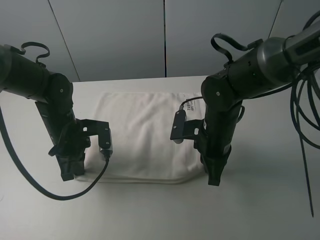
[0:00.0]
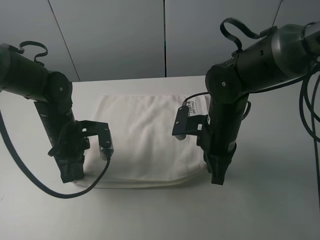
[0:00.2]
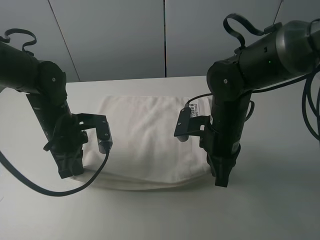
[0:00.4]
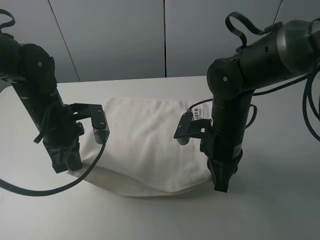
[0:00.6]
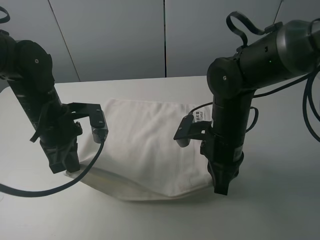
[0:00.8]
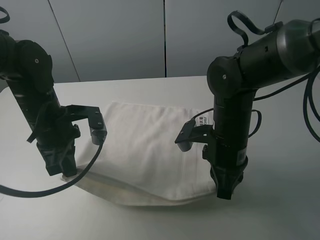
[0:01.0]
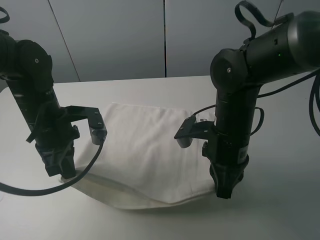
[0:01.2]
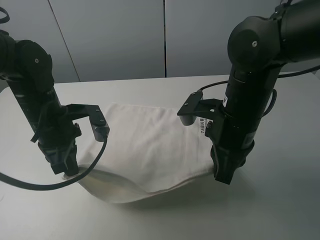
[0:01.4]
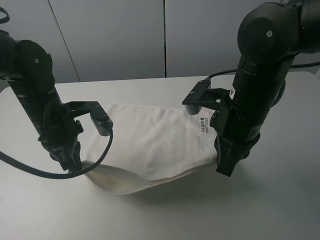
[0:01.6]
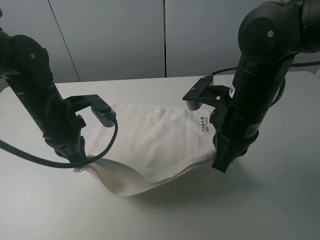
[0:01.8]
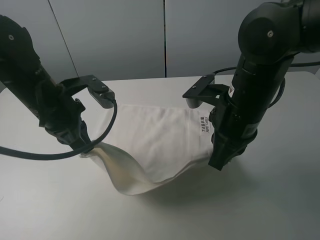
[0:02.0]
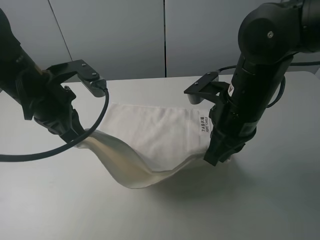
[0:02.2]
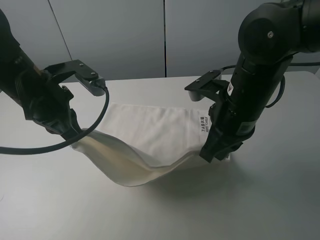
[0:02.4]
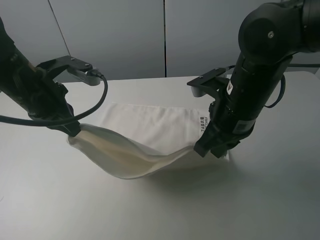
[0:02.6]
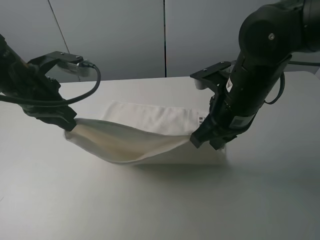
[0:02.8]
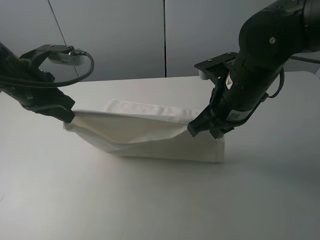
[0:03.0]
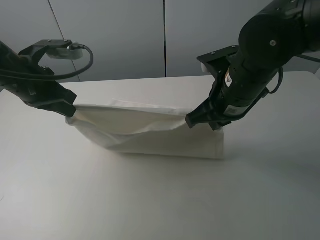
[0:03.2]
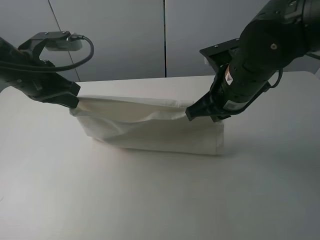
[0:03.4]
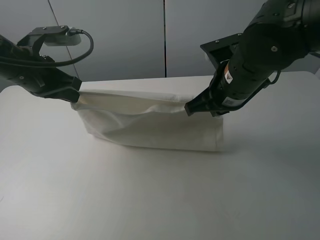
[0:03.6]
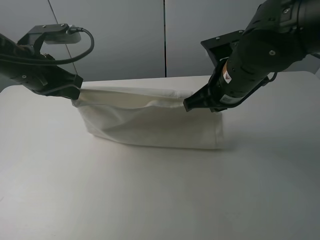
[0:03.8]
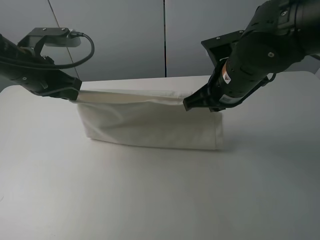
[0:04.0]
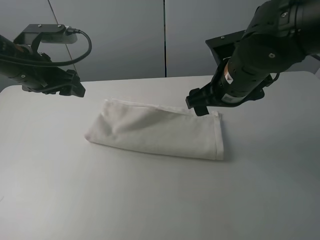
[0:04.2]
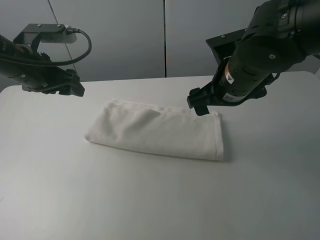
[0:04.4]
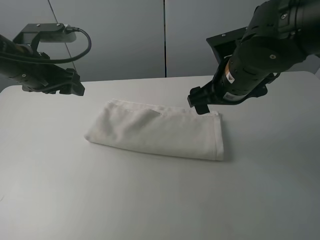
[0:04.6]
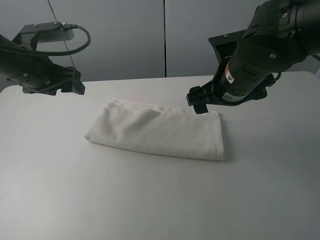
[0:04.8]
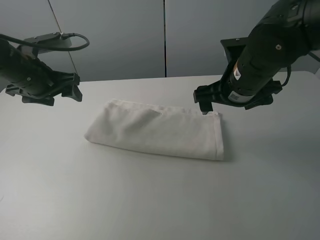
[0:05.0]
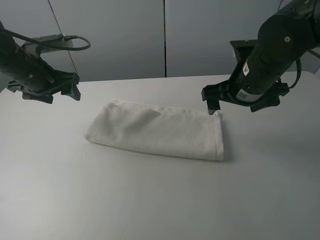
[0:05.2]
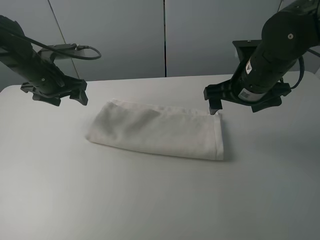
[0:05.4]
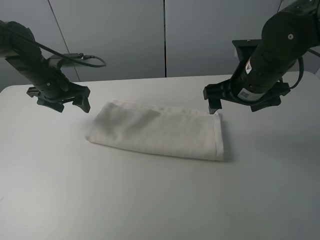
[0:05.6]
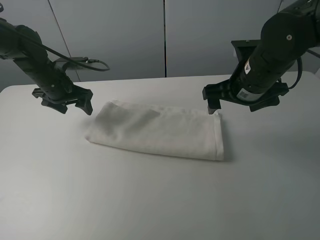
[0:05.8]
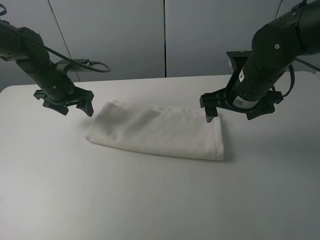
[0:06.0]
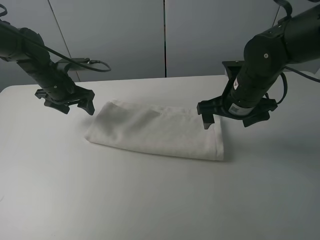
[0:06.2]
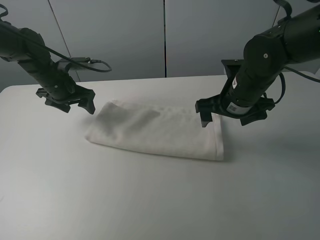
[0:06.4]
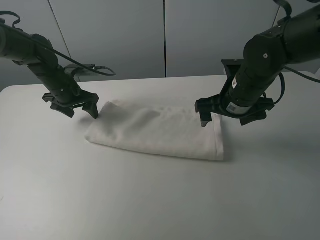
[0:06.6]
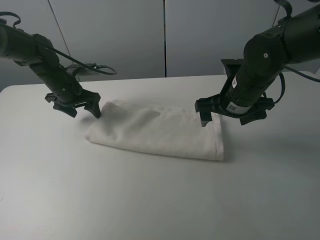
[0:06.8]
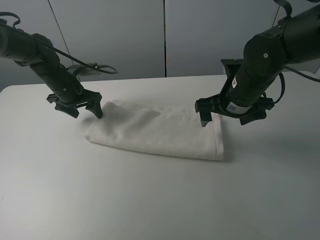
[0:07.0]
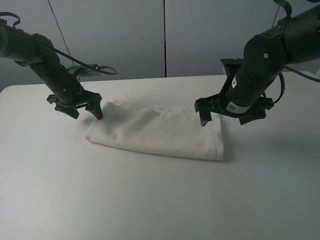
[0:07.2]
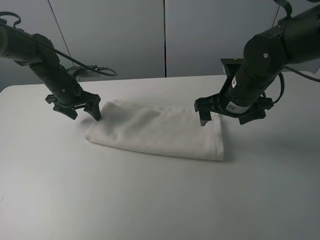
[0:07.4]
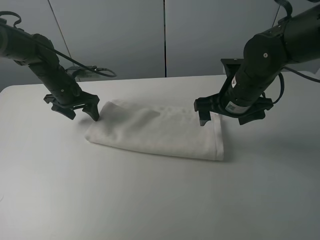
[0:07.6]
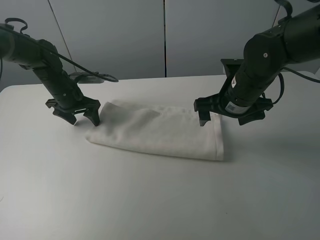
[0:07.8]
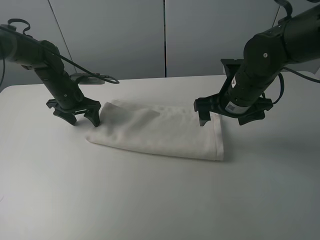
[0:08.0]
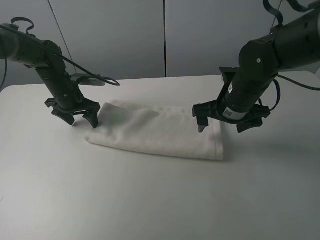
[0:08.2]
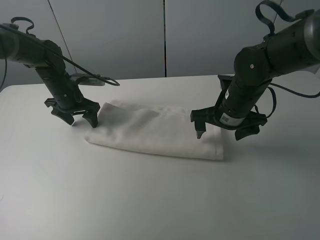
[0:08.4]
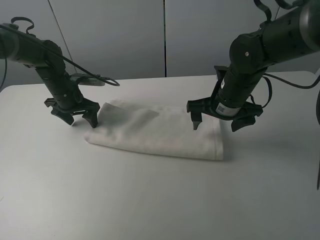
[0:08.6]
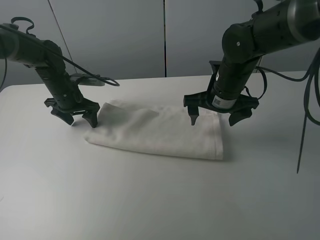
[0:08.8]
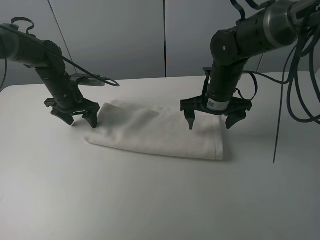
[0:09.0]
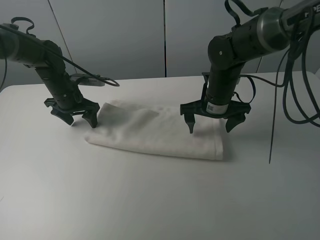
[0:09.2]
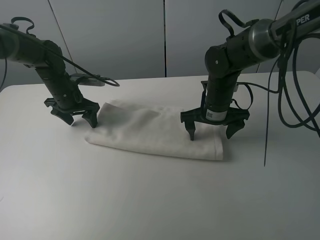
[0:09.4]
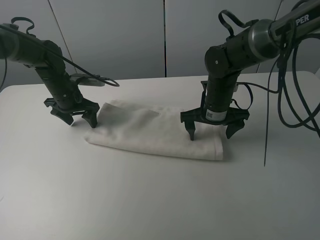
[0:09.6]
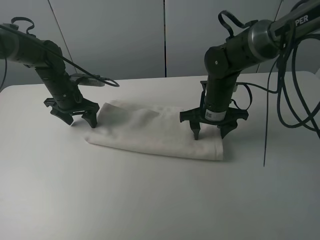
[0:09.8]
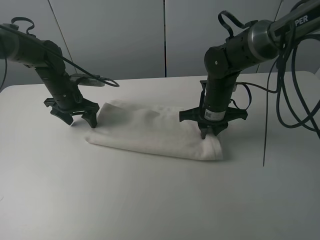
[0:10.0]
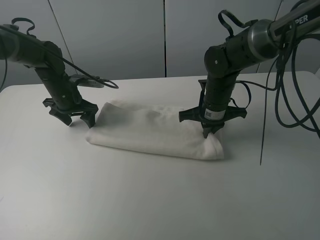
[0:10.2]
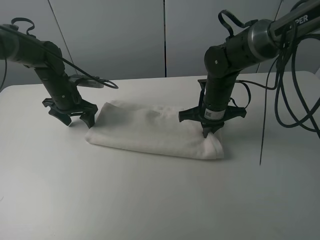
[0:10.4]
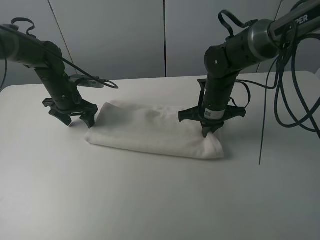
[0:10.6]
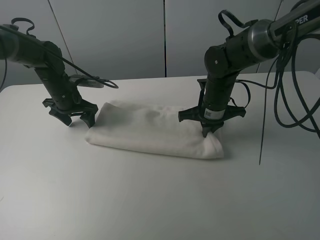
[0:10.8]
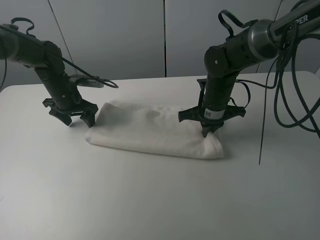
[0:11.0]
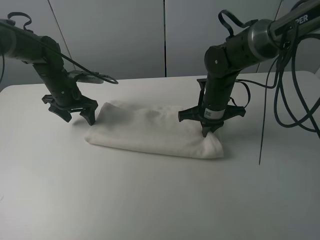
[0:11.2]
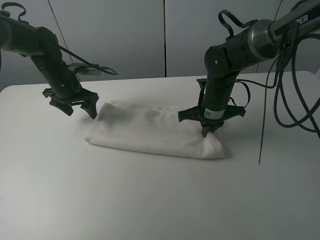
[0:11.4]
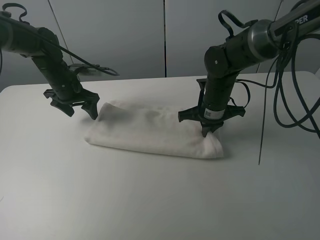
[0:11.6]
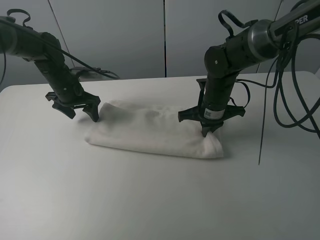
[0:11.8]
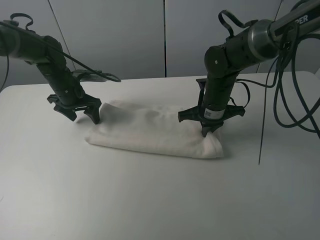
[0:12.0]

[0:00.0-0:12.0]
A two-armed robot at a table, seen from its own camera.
Task of the whole recording: fold the towels on the table.
Step, 0:00.0 to 0:04.8: Fold the white towel upwards with the right gripper.
Step, 0:05.0 to 0:08.2: Press on the white towel with the left gripper.
0:00.0 to 0:01.6: The left gripper moves upward, roughly 5 cm, while the right gripper shifts some 10 cm upward.
0:01.6 to 0:03.0: The left gripper goes about 5 cm upward.
0:03.0 to 0:04.4: The left gripper opens its fingers; the right gripper opens its fingers.
0:04.4 to 0:06.0: The left gripper is displaced downward and forward by roughly 10 cm. The right gripper moves some 5 cm.
0:06.0 to 0:07.6: The grippers move only a little.
0:07.6 to 0:09.0: The right gripper ends up approximately 5 cm from where it was.
0:09.0 to 0:10.4: The right gripper closes up.
0:10.4 to 0:12.0: There are only small adjustments of the grippers.

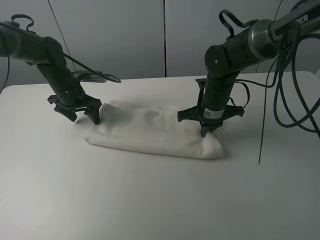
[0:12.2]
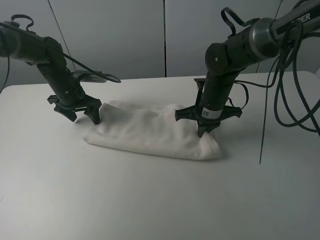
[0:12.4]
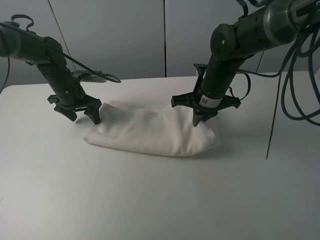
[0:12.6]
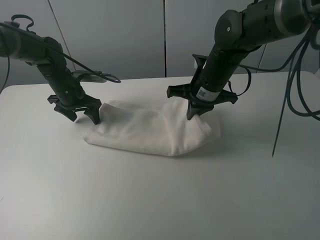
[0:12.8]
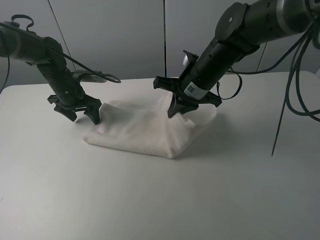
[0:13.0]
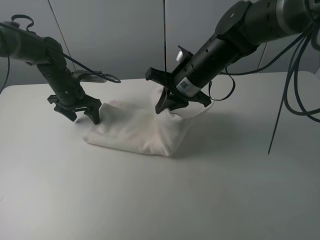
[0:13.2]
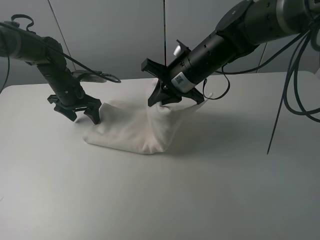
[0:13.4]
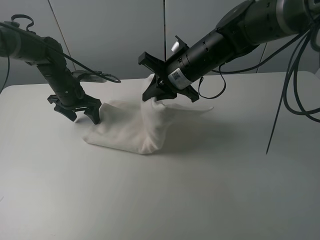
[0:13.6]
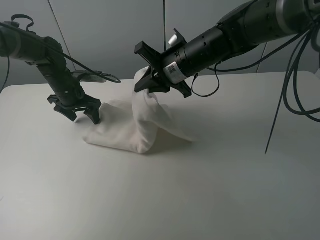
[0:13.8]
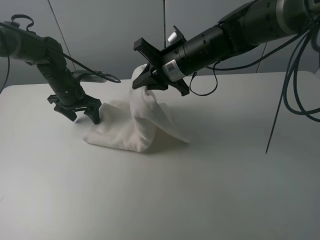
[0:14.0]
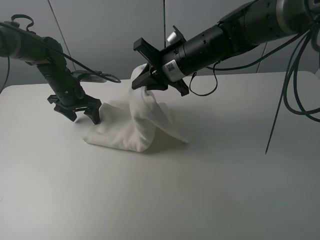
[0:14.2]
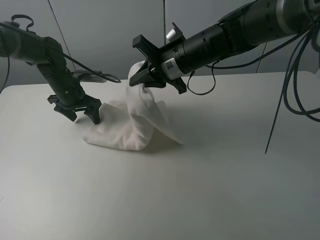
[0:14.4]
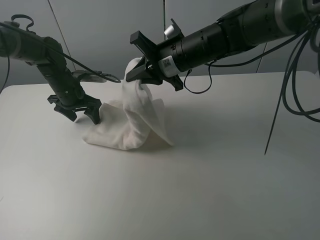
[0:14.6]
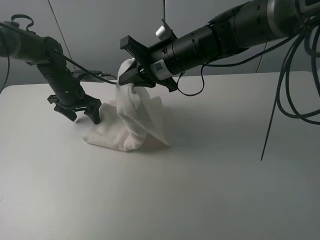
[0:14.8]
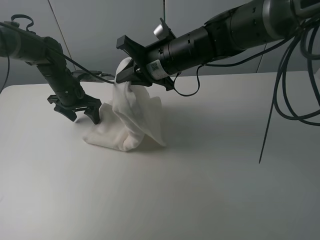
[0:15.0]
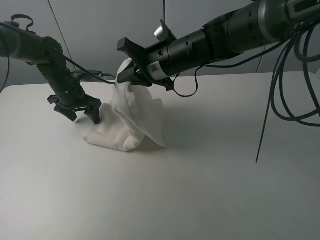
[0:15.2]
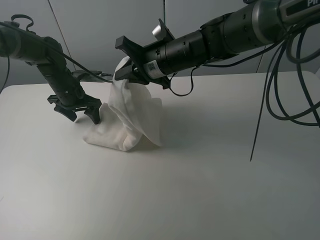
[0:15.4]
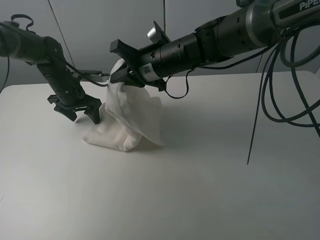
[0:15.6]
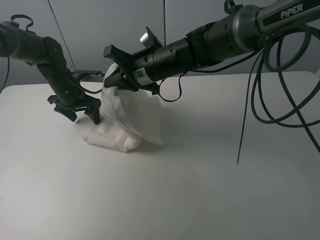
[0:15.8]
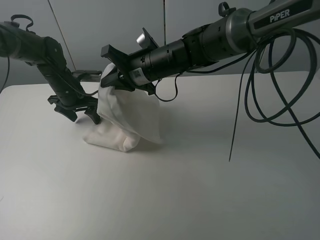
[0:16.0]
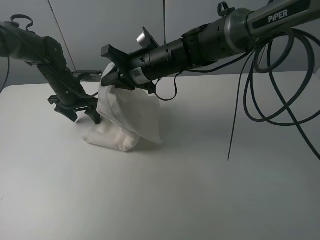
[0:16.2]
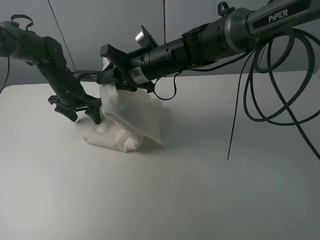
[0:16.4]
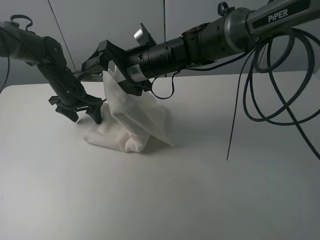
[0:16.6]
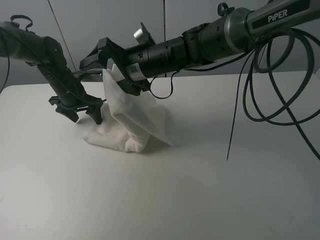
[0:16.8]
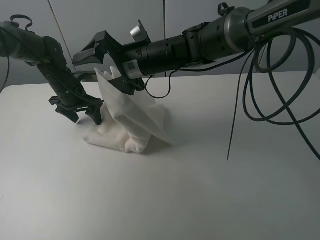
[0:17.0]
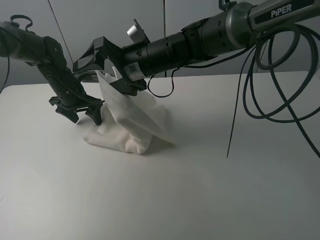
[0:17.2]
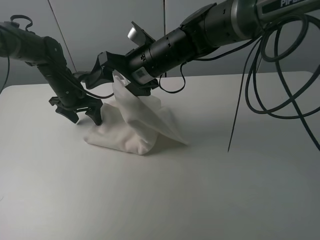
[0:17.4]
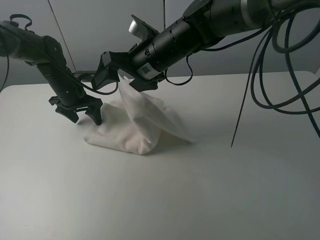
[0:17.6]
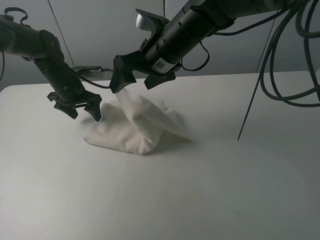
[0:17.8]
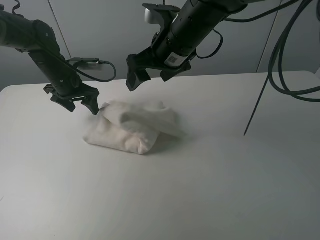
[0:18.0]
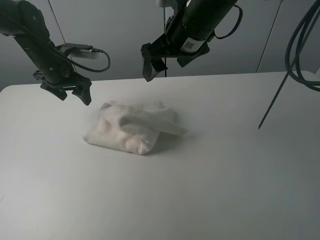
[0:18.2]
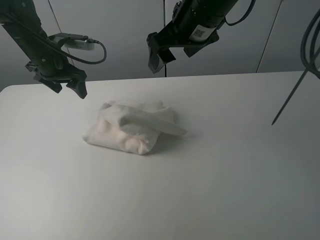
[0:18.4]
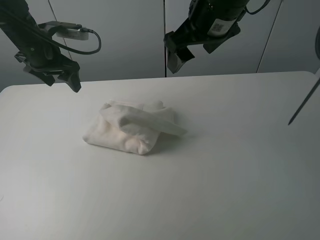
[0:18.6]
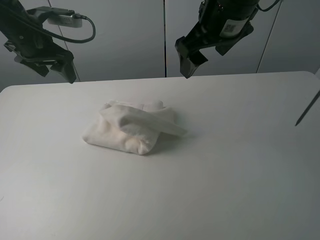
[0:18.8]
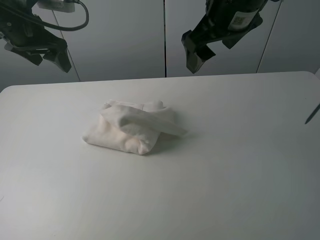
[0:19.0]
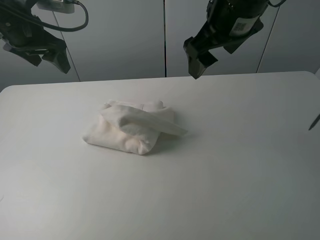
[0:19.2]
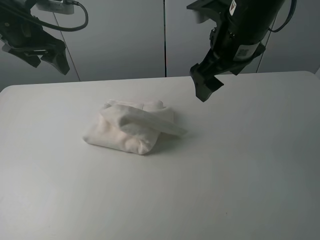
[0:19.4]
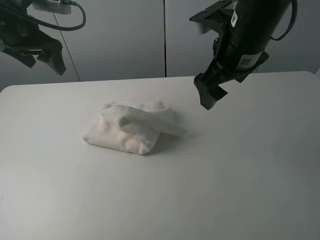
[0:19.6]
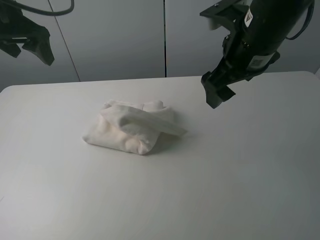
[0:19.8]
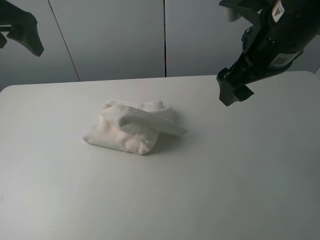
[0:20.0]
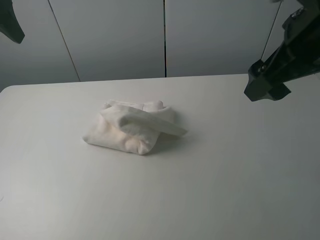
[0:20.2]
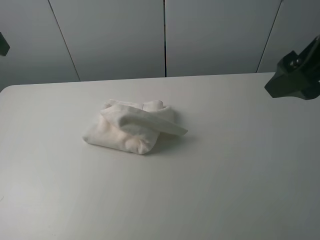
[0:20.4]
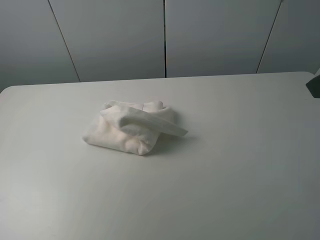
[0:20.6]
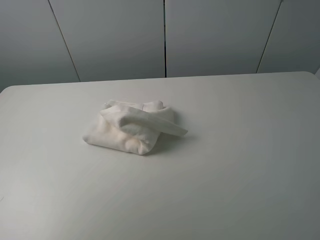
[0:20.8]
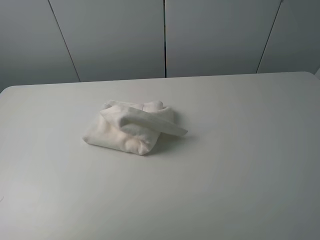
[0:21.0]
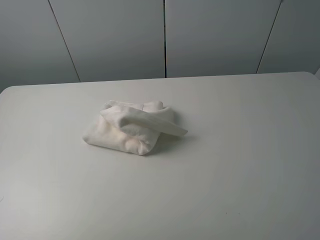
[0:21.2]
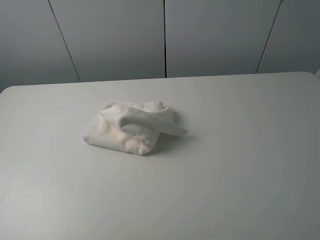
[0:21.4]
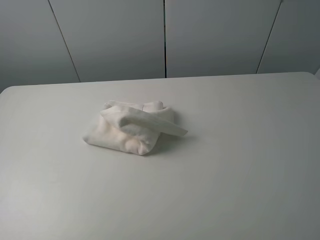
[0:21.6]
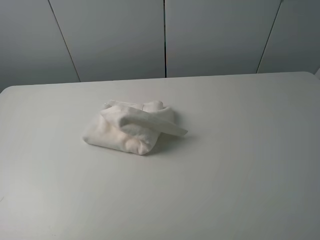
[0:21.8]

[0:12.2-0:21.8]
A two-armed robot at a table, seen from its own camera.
Task of the whole recording: fold the towels on the table.
Step, 0:12.2 to 0:18.2: Fold the white towel from right to left with right gripper.
0:12.2 to 0:13.8: The right gripper moves upward and to the left, some 10 cm.
0:13.8 to 0:15.4: There are only small adjustments of the grippers.
0:15.4 to 0:17.0: The right gripper opens its fingers.
0:17.0 to 0:18.6: The right gripper heads upward and to the right, covering roughly 15 cm. Meanwhile the left gripper moves upward, roughly 15 cm.
0:18.6 to 0:20.2: The right gripper heads backward and to the right, covering some 15 cm; the left gripper shifts approximately 15 cm upward and backward.
0:20.2 to 0:21.8: The left gripper moves backward and to the left, approximately 30 cm. The right gripper moves backward and to the right, approximately 20 cm.
